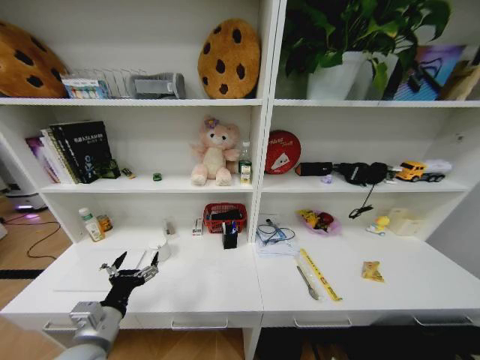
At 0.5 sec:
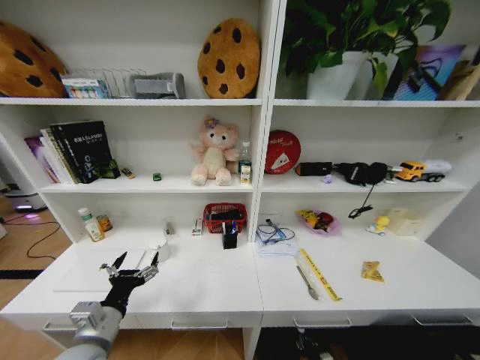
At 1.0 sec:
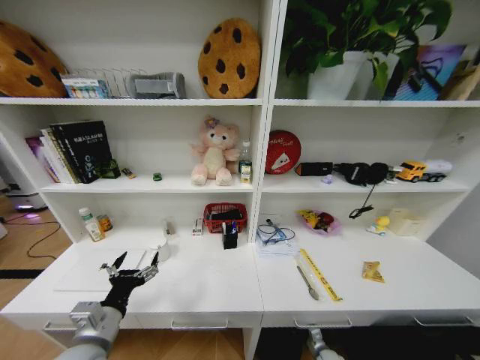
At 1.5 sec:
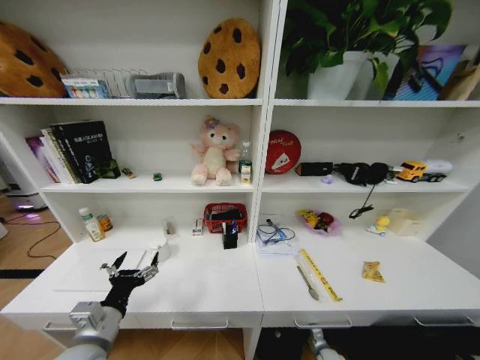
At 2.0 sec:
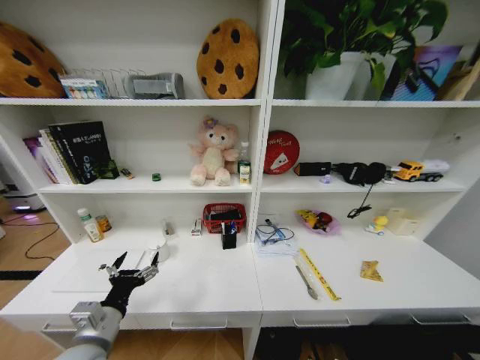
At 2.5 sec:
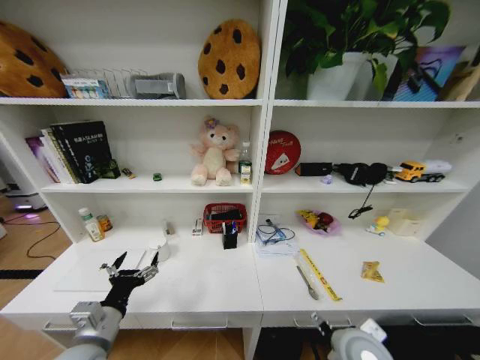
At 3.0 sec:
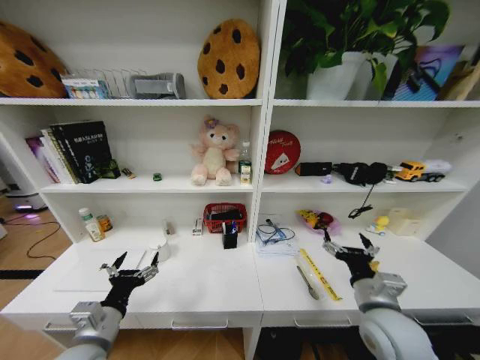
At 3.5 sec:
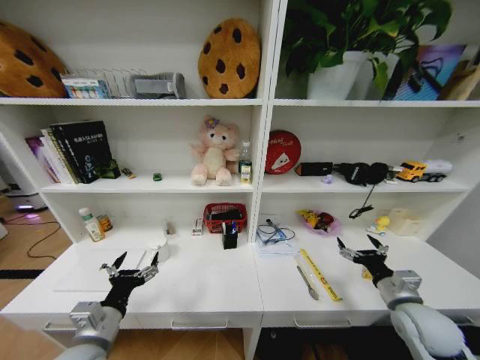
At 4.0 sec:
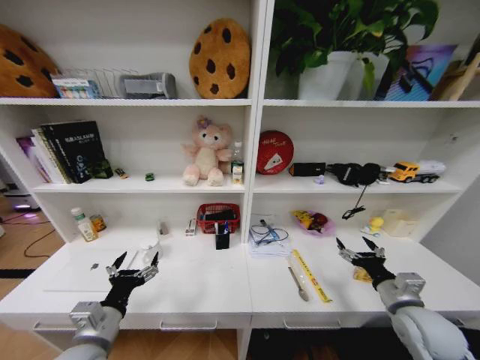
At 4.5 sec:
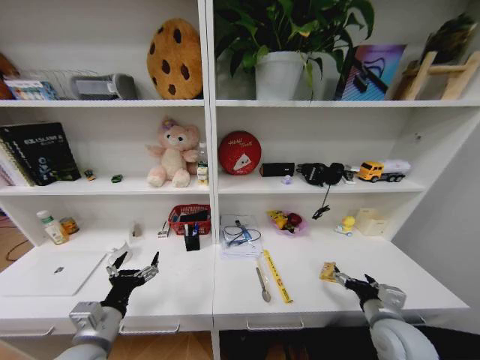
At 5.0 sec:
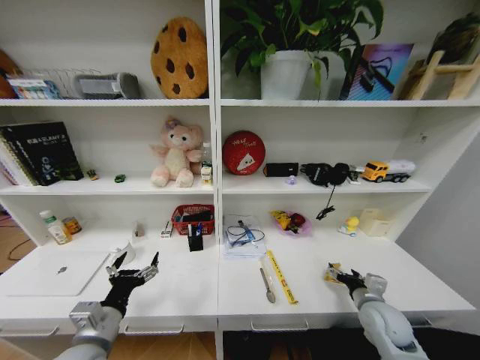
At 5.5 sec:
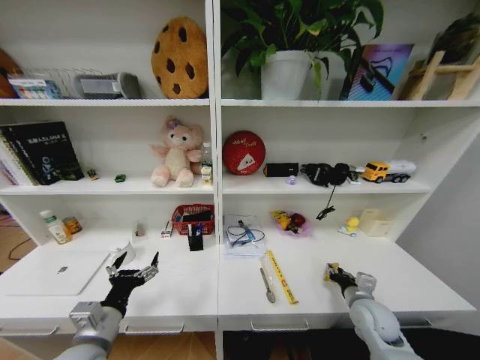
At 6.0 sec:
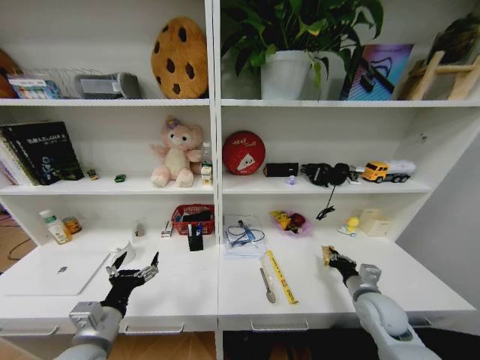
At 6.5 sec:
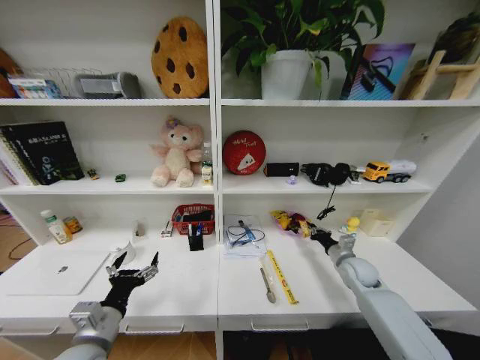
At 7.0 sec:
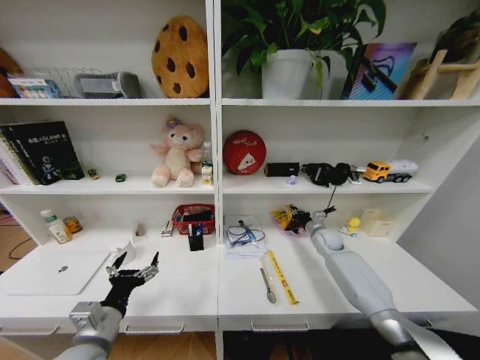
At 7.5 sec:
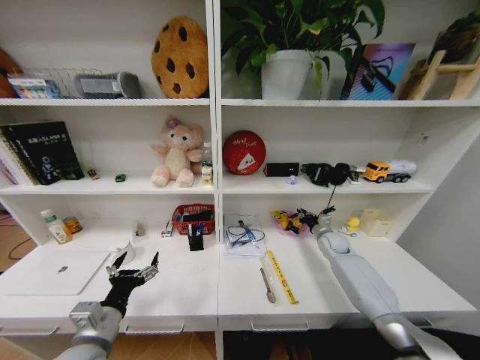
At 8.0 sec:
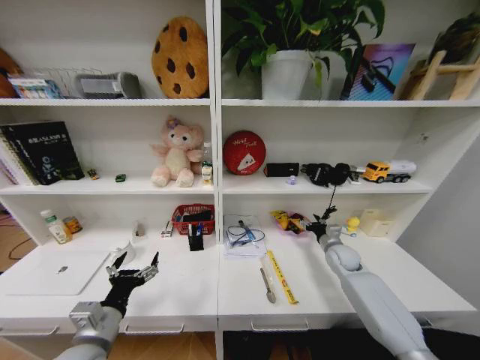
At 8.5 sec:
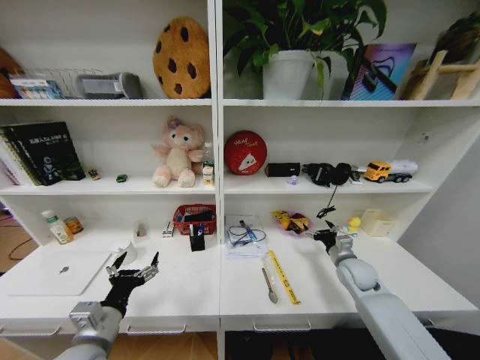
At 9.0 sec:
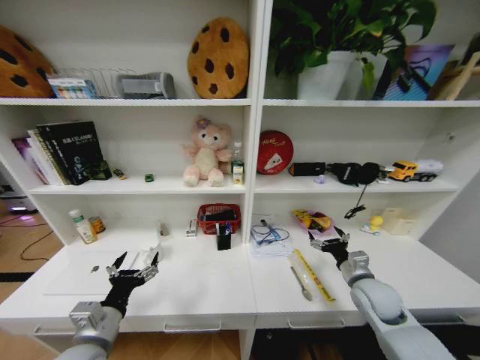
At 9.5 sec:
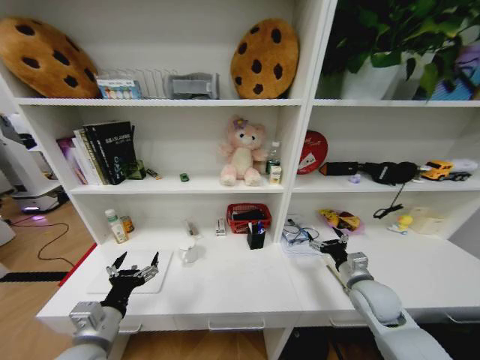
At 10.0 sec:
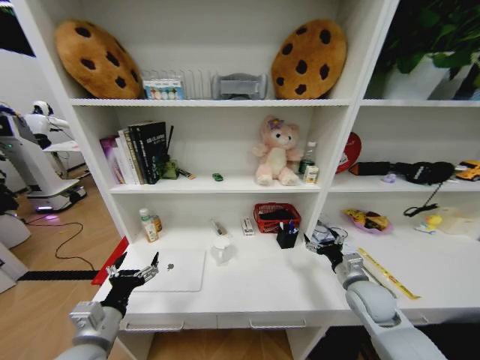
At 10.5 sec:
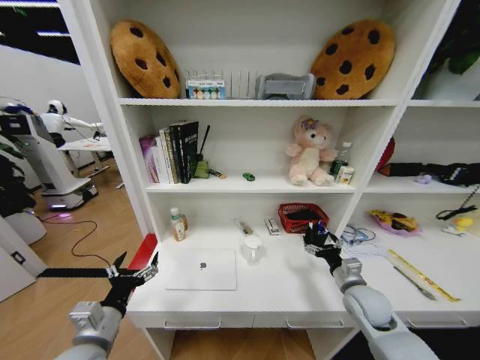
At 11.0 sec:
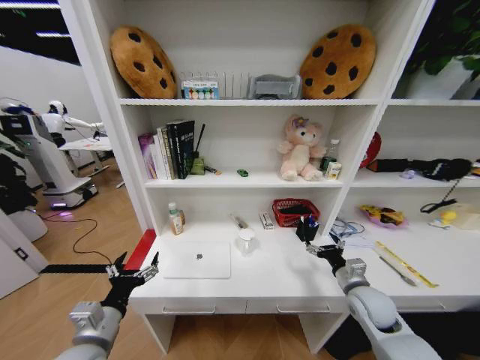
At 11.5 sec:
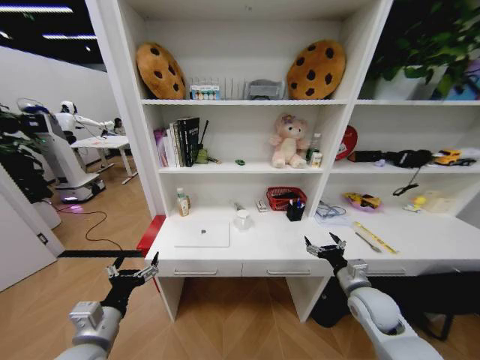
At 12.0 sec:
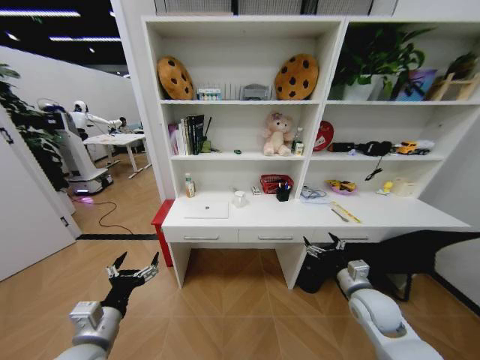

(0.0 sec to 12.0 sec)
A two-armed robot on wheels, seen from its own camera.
Task of the whole recording: Organize the objects on the table.
0.0 sec - 2.0 sec: The right gripper moves some 10 cm forward and comes back, and opens up.
2.0 sec - 4.0 sec: The right gripper shifts about 35 cm upward.
4.0 sec - 6.0 sec: The right gripper shifts some 5 cm downward, and closes.
6.0 sec - 8.0 sec: The right gripper shifts some 15 cm forward, and opens up.
8.0 sec - 10.0 sec: The right gripper is displaced backward by approximately 15 cm.

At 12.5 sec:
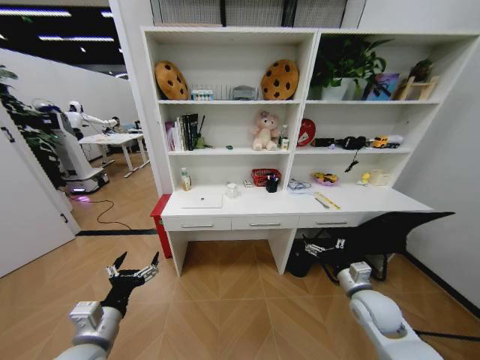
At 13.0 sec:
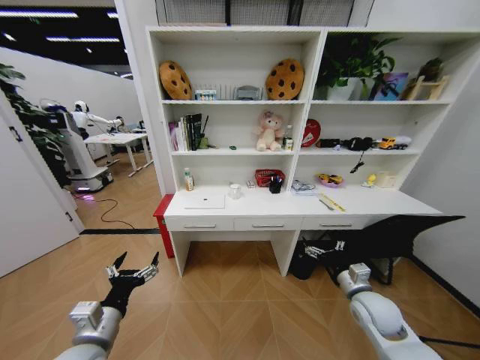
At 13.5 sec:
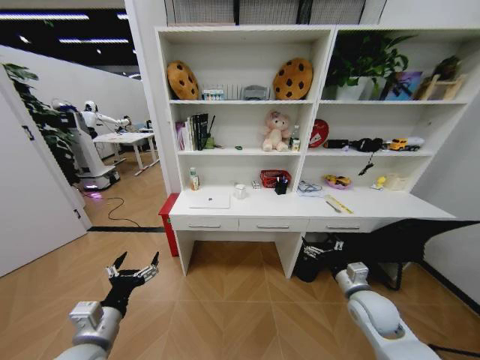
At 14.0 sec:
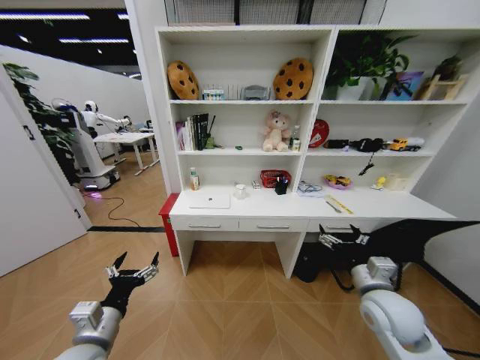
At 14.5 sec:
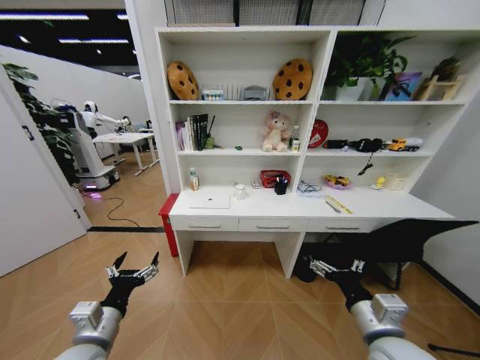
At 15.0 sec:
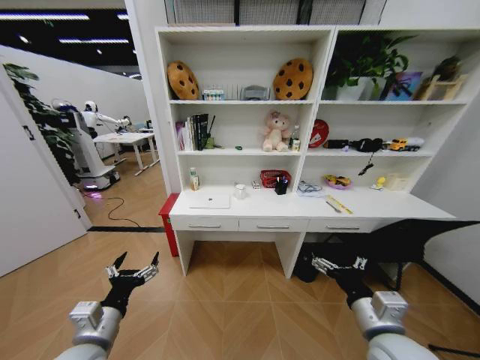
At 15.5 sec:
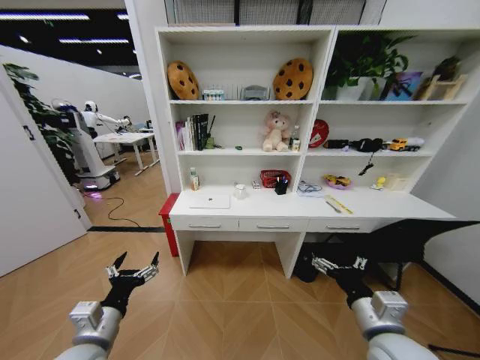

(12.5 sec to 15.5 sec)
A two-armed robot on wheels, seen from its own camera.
Task of the whole recording: Organize the objects on the table.
12.5 sec - 14.0 sec: The right gripper moves upward, about 5 cm.
14.0 sec - 15.5 sec: The right gripper travels backward by roughly 10 cm.
